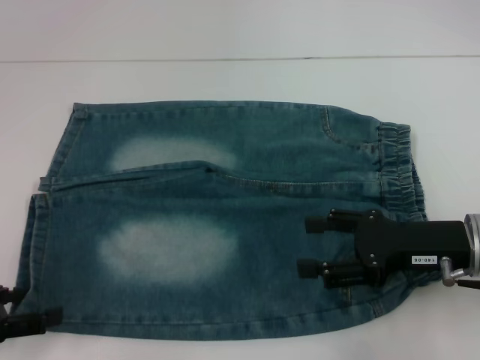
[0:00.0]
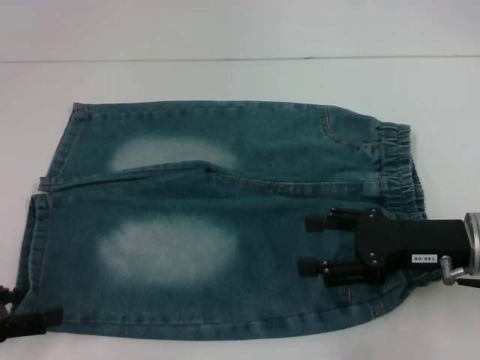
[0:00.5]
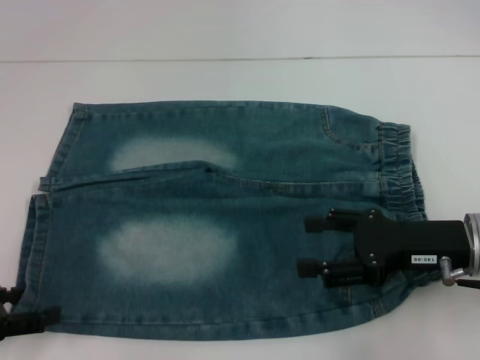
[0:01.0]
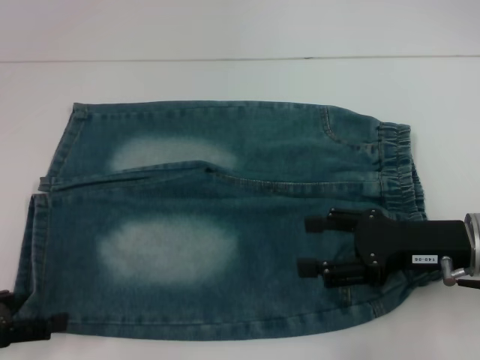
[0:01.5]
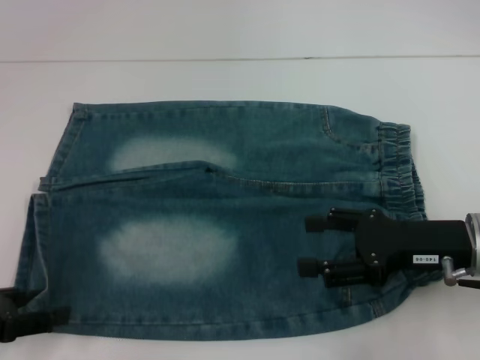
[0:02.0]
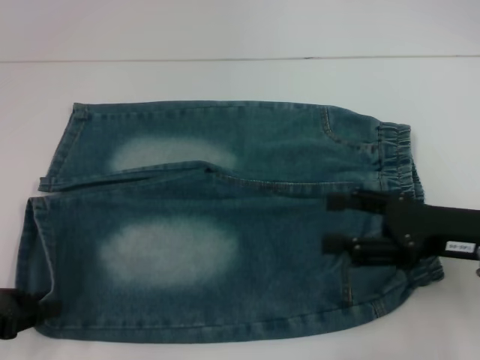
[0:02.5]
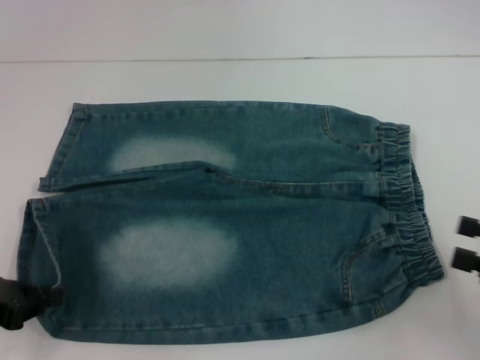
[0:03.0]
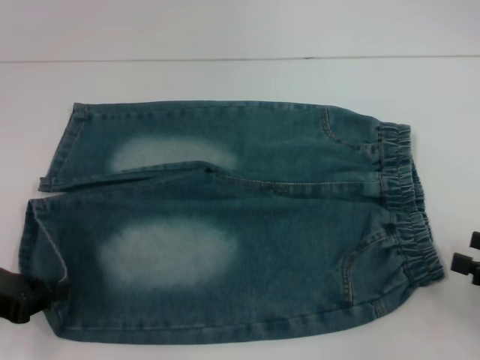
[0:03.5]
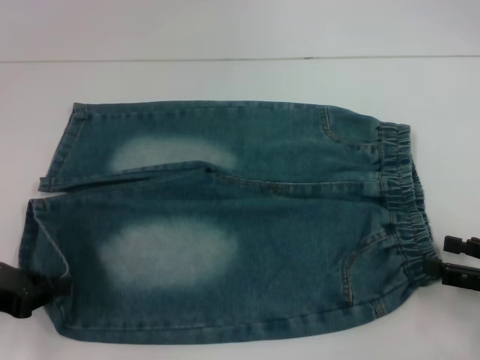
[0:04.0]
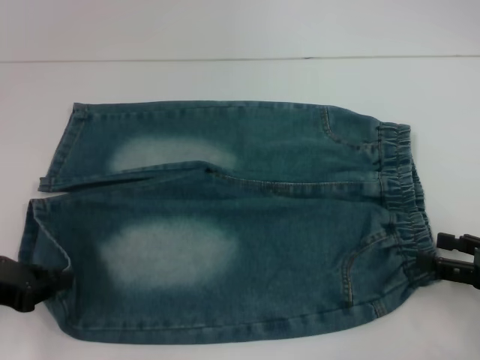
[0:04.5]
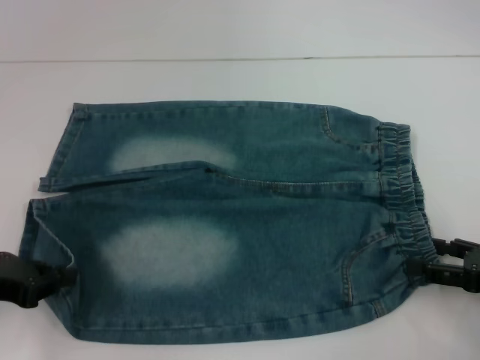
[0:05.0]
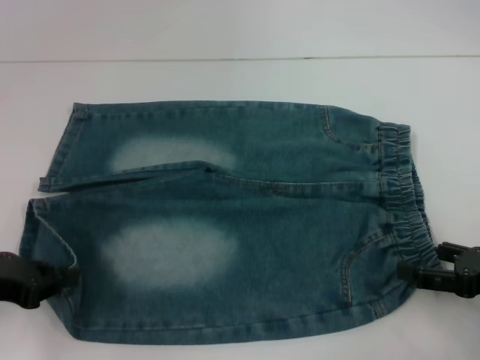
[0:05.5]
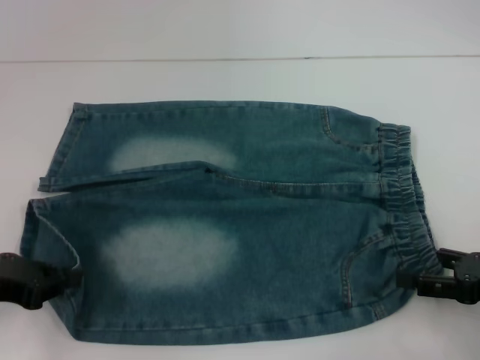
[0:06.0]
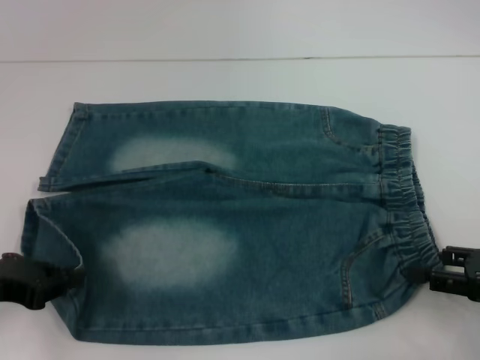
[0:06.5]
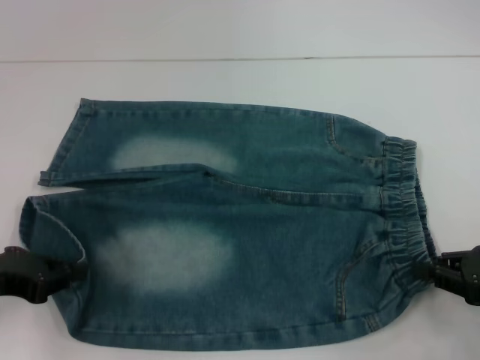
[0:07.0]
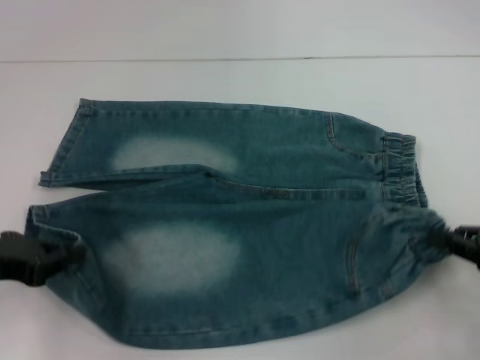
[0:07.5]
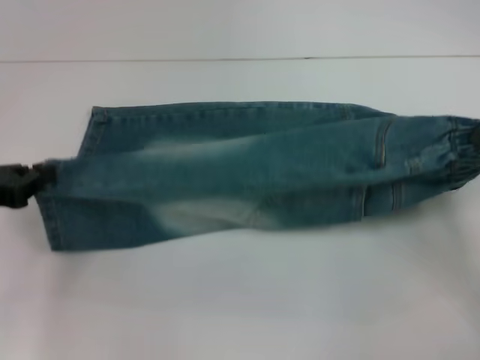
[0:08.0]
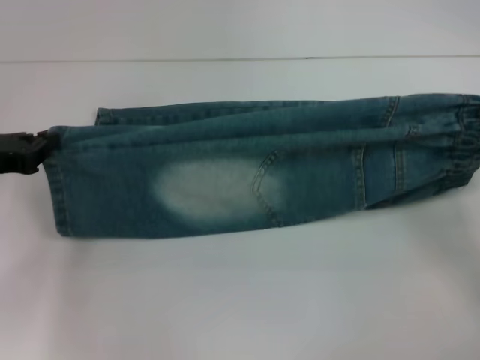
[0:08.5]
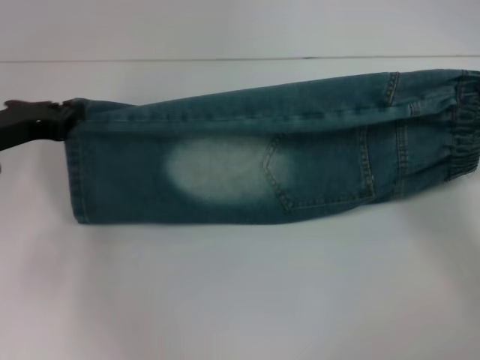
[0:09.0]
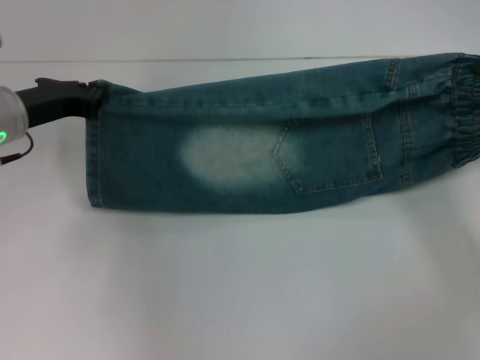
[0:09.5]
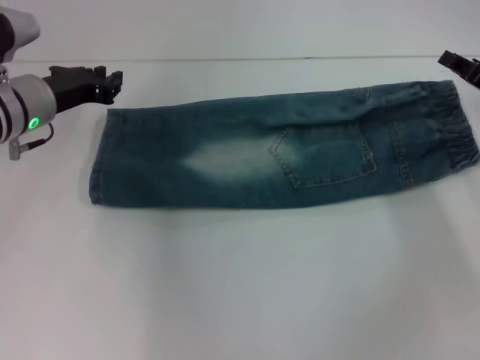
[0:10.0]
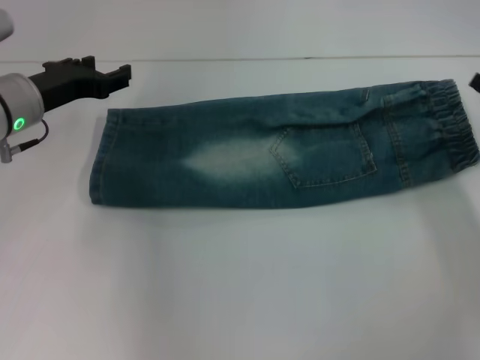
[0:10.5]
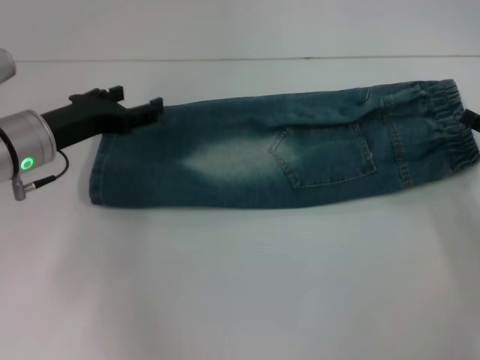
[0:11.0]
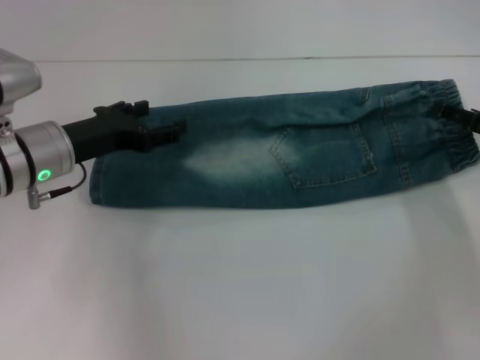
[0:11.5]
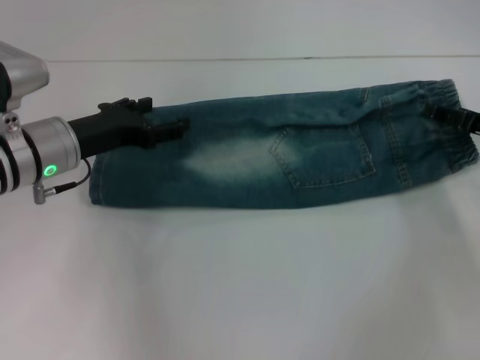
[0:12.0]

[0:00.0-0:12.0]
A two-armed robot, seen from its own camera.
Step, 0:00.0 to 0:02.5: Grab the lower left pant leg with your left hand.
Step, 0:03.0 to 0:07.0: Hold the lower right waistband with your right hand.
Step, 0:07.5 to 0:09.5: Fold upward with your right hand.
0:00.0 to 0:02.0: Both grippers stay put.
0:02.0 to 0:04.0: The left gripper closes its fingers. The right gripper is displaced to the right and backward by about 15 cm.
0:04.0 to 0:06.0: The grippers make only small movements.
0:06.0 to 0:08.0: The right gripper moves approximately 5 cm, and closes.
0:08.0 to 0:10.0: The left gripper heads forward and to the right, covering approximately 15 cm. The right gripper travels forward by approximately 10 cm.
0:10.0 to 0:12.0: The right gripper opens its fingers, while the left gripper shifts by some 5 cm, and opens up.

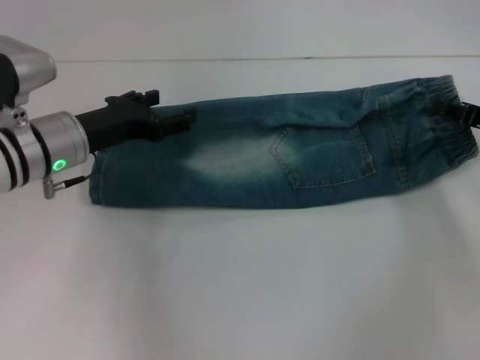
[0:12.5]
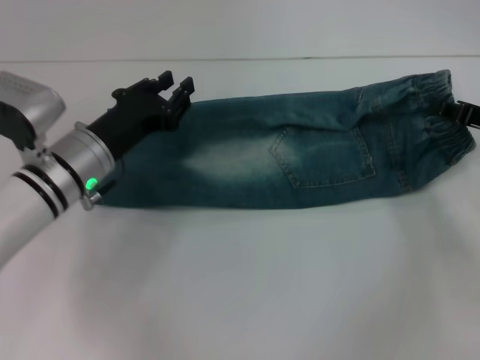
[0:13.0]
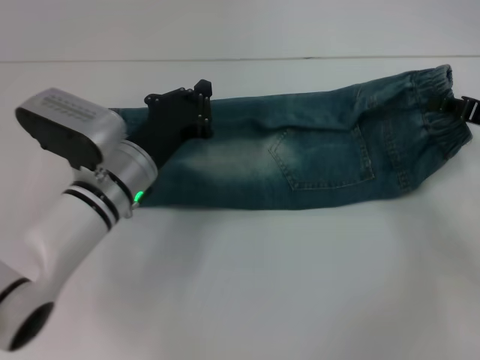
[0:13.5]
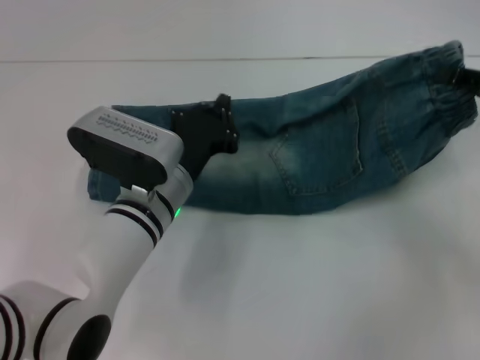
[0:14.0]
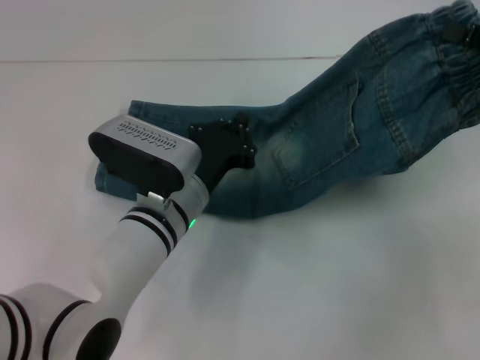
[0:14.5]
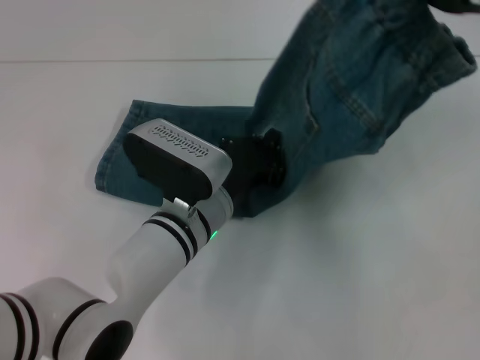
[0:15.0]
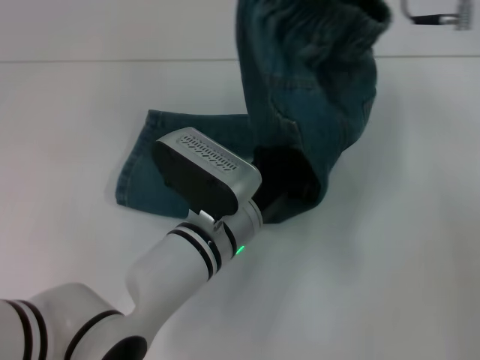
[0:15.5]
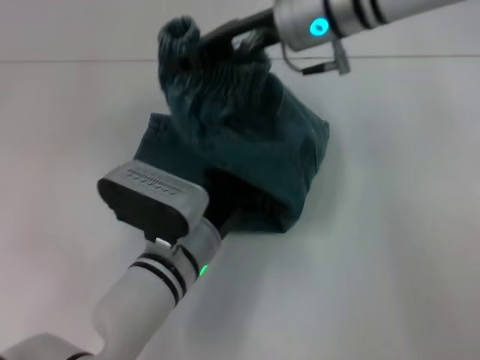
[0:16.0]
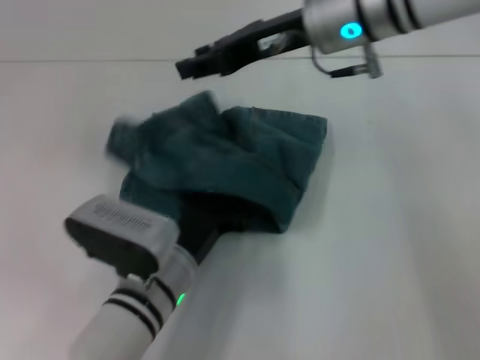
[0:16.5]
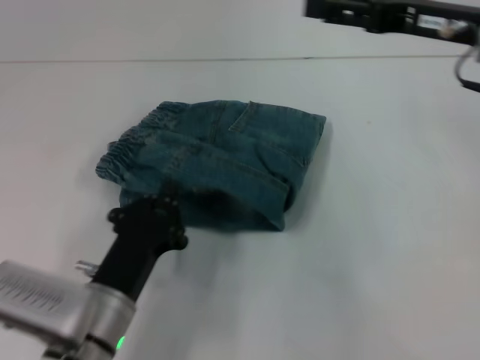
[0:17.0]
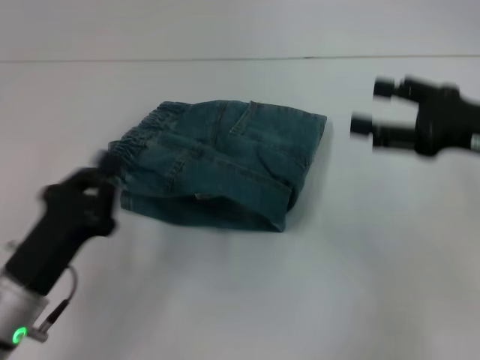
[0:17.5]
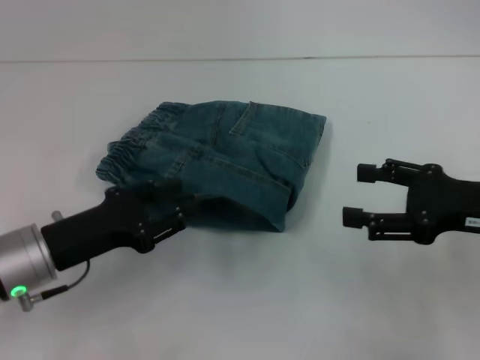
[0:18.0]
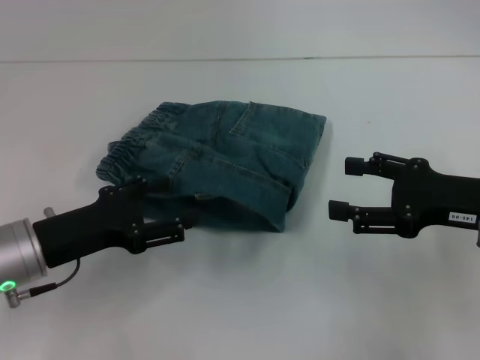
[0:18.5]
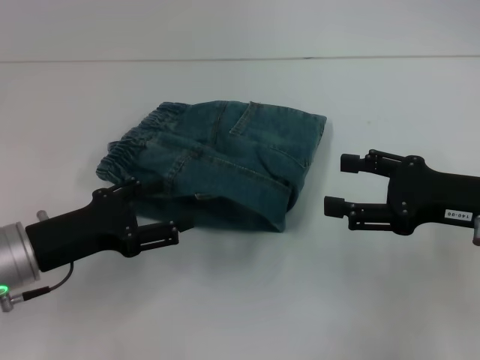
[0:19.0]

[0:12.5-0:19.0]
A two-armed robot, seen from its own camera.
Step, 0:12.5 to 0:16.5: Fold to the left with your right hand.
0:12.5 to 0:14.5: The right gripper is displaced upward by some 10 cm, and closes its fingers. Meanwhile the left gripper heads to the right, downward and backward, covering some 15 cm, and closes up.
0:14.5 to 0:17.0: The left gripper shifts approximately 15 cm backward and to the left, while the right gripper travels to the left by some 10 cm, and opens its fingers.
0:17.0 to 0:19.0: The left gripper goes some 15 cm to the left, upward and forward, and opens up. The right gripper heads backward and downward, covering some 15 cm.
